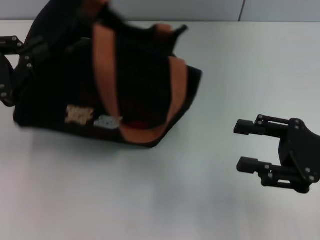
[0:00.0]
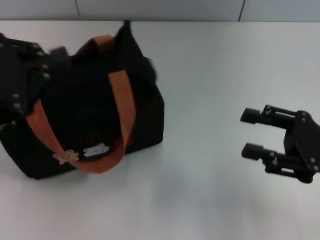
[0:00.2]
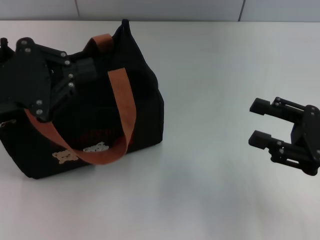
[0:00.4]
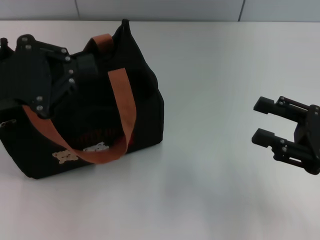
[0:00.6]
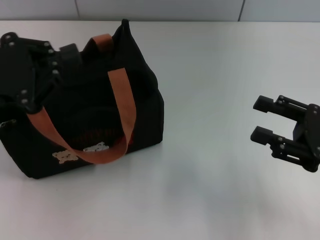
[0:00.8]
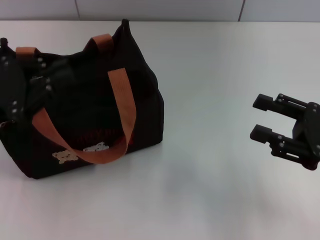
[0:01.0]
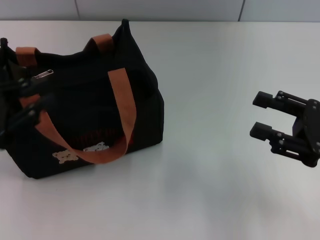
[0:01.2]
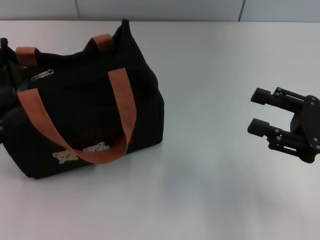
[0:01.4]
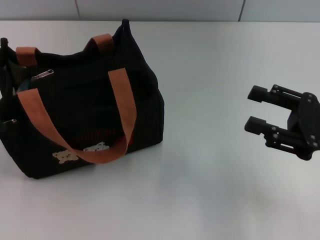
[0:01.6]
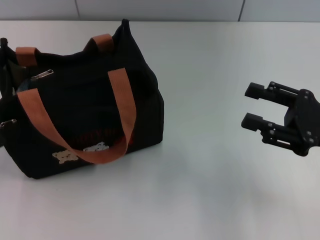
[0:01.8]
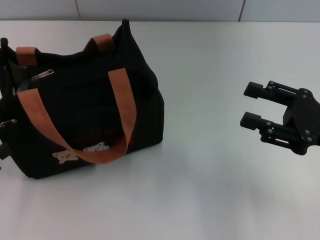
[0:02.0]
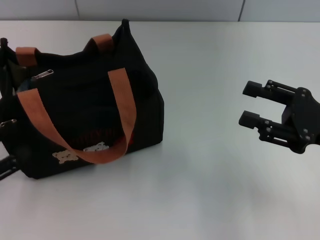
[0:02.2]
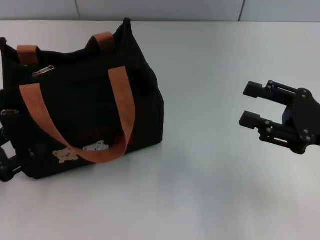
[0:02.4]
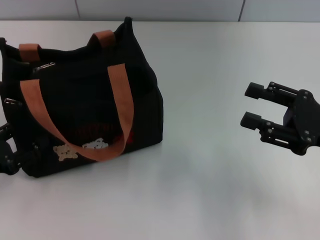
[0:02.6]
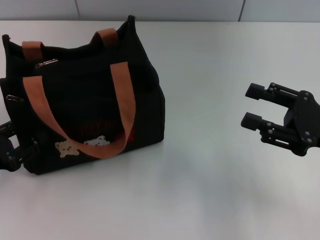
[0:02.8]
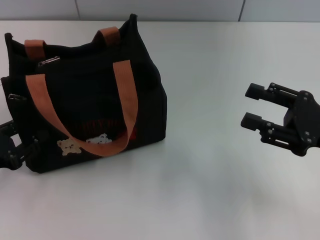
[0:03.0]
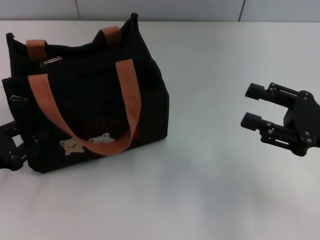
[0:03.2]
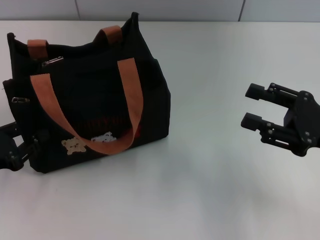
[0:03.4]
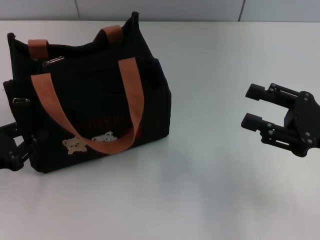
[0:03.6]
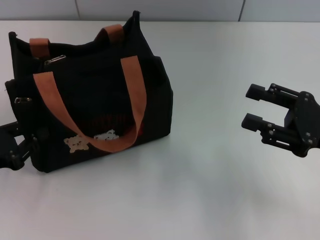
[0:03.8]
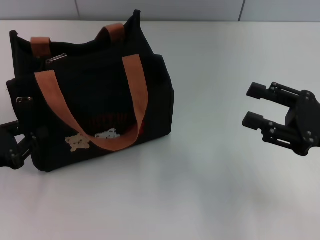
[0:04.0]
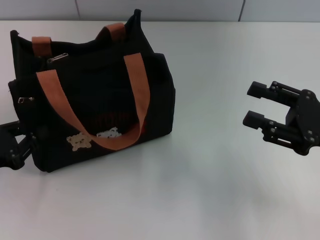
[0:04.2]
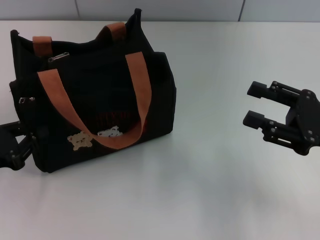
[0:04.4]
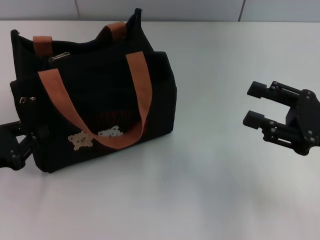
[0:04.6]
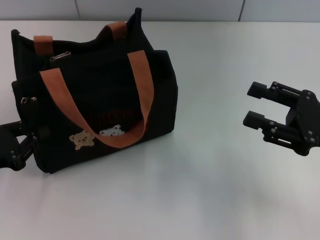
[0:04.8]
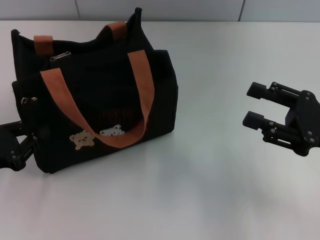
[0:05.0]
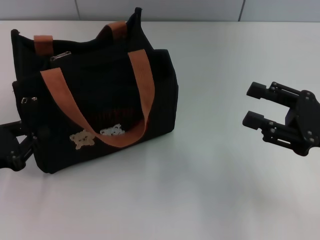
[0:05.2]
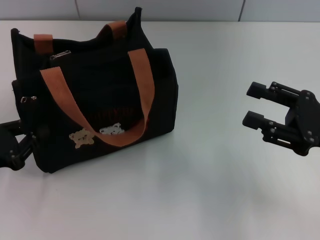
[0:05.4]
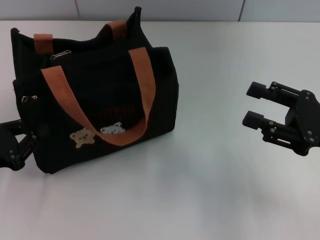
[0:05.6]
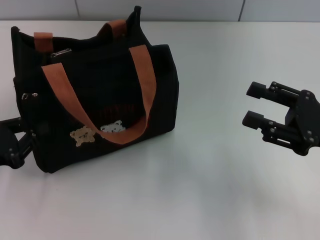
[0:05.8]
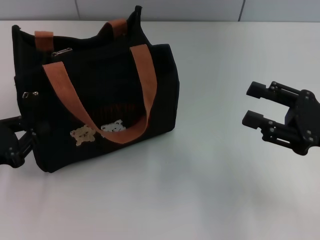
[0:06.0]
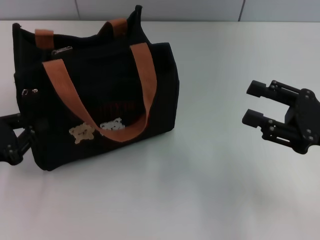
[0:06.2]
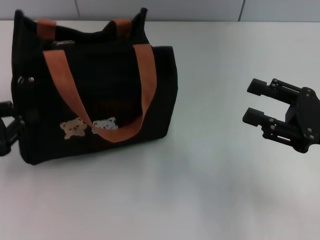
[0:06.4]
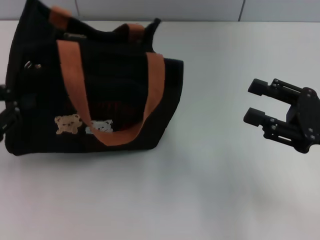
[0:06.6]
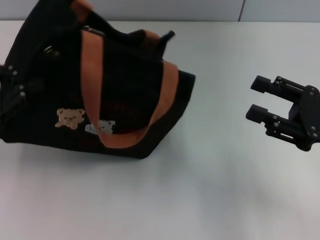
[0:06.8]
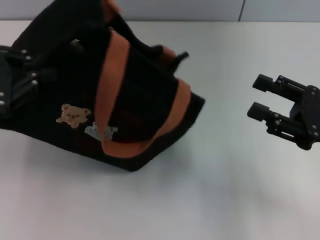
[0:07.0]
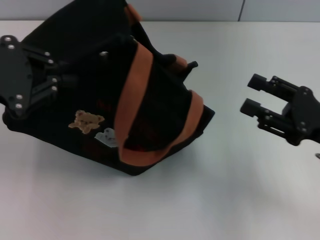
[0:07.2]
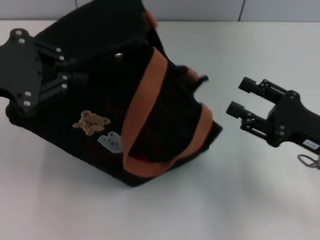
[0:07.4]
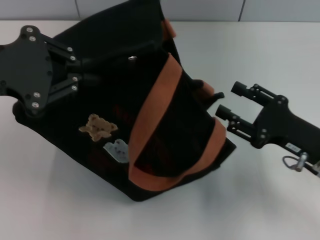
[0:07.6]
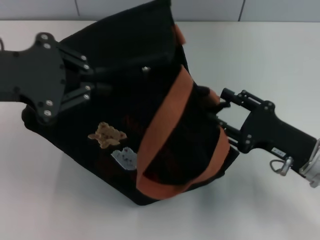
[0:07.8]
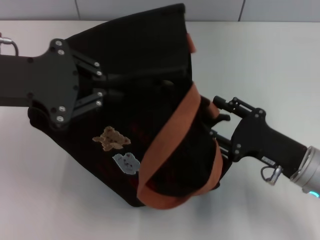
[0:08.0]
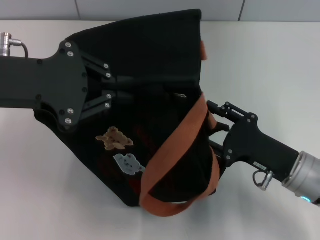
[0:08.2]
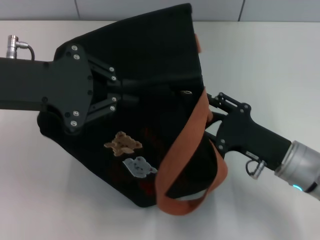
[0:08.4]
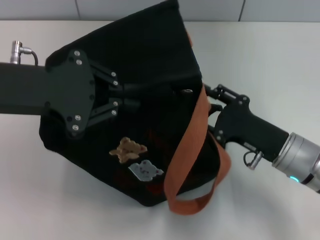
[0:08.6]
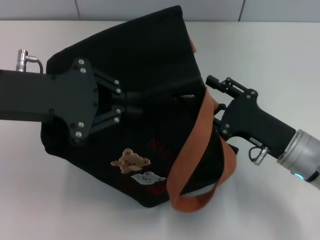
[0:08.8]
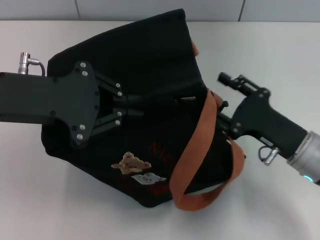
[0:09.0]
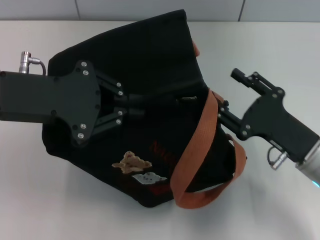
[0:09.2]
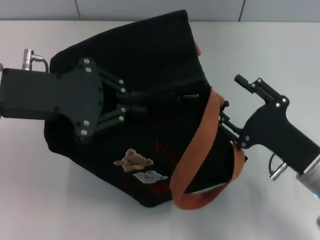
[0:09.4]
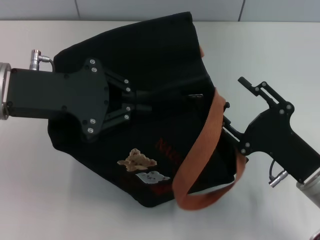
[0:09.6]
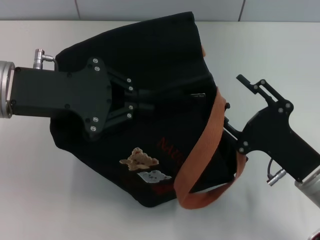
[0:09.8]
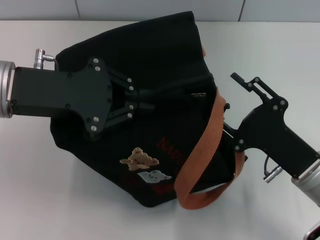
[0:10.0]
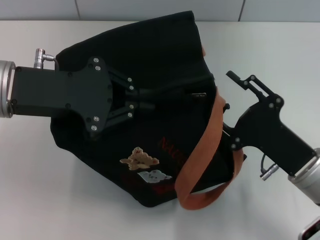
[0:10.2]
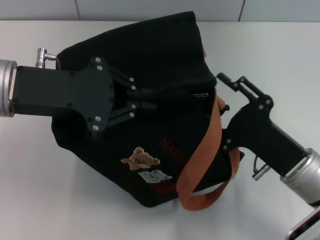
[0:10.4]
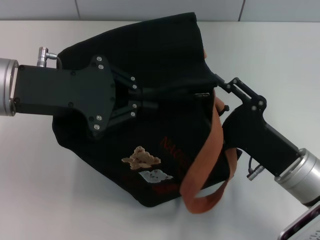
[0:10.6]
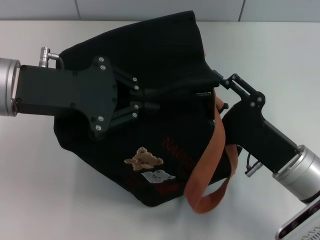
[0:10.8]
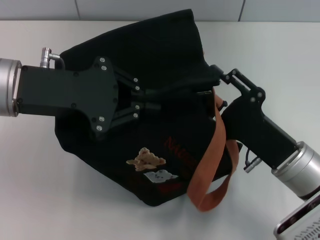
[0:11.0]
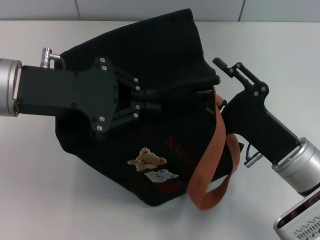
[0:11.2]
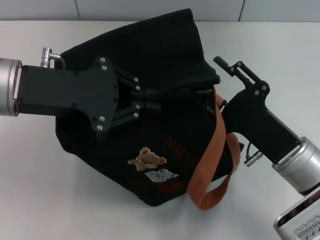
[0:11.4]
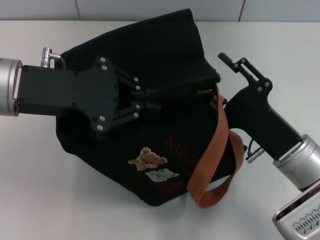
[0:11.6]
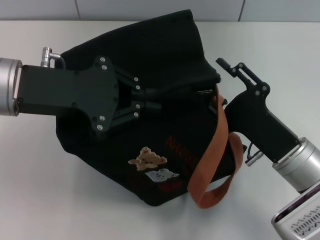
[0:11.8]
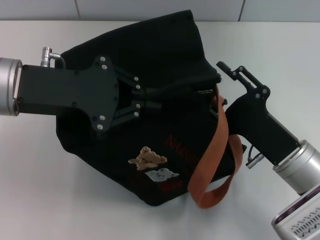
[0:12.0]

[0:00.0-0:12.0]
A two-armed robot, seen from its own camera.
0:00.0 to 0:01.6: The left gripper heads backward and to the left, covering about 10 cm, and opens.
0:01.6 to 0:03.0: The left gripper shifts about 5 cm downward.
0:03.0 to 0:04.4: The left gripper closes its fingers.
0:04.4 to 0:06.0: The two grippers keep their place.
0:06.0 to 0:07.6: The right gripper shifts by approximately 5 cm, while the left gripper heads upward, covering roughly 15 cm.
0:10.4 to 0:12.0: The grippers make only small movements.

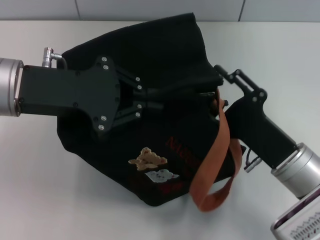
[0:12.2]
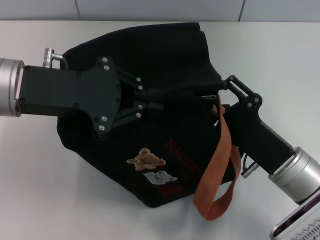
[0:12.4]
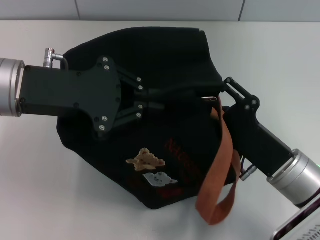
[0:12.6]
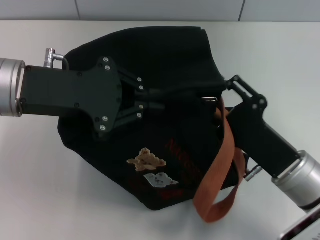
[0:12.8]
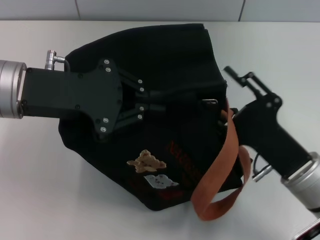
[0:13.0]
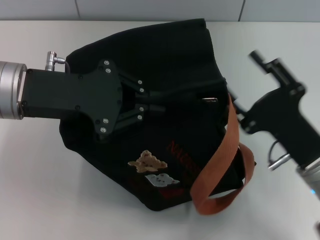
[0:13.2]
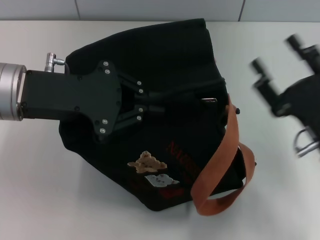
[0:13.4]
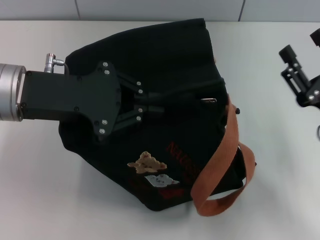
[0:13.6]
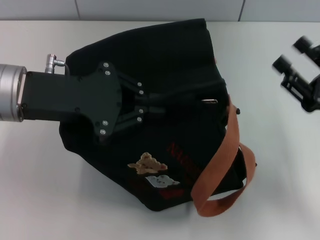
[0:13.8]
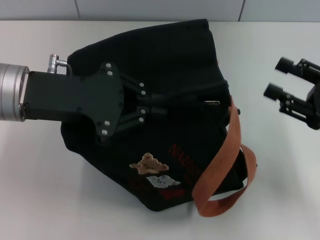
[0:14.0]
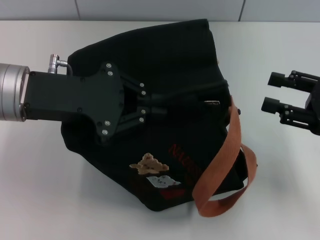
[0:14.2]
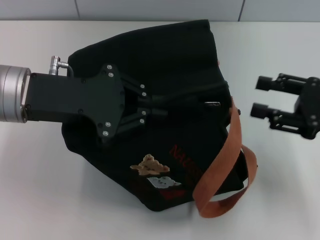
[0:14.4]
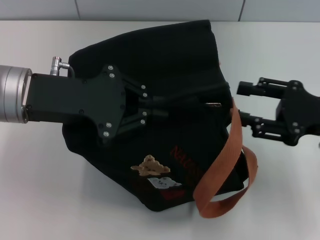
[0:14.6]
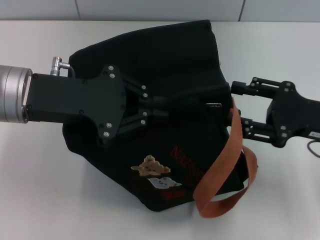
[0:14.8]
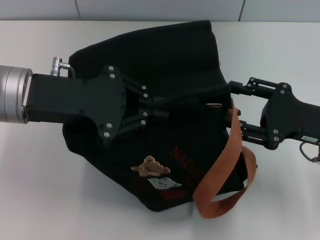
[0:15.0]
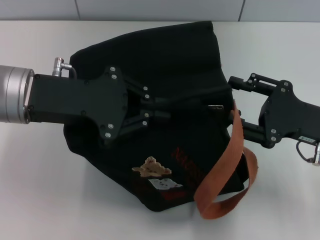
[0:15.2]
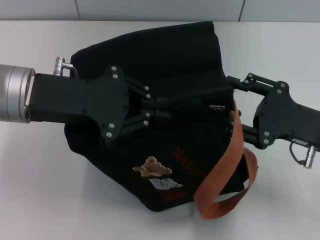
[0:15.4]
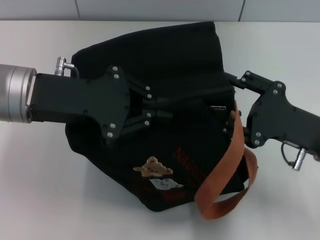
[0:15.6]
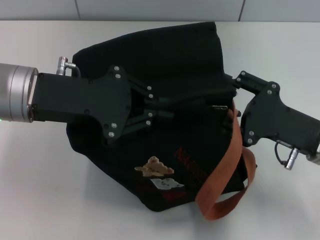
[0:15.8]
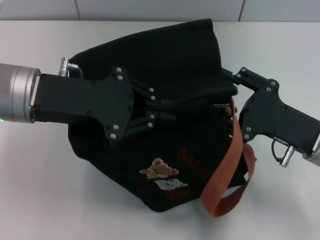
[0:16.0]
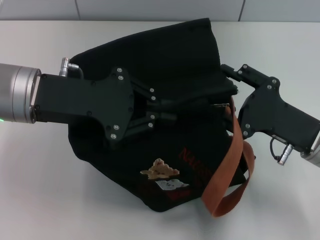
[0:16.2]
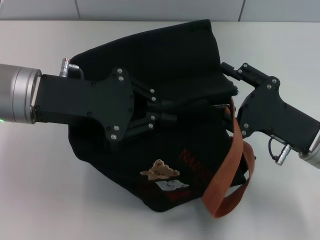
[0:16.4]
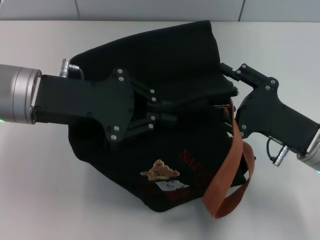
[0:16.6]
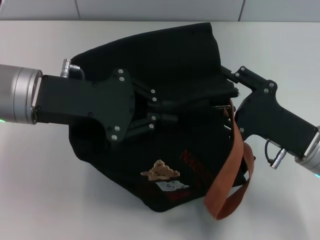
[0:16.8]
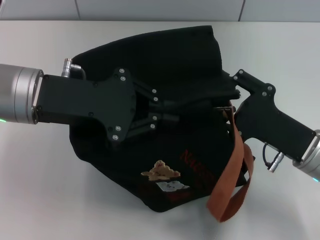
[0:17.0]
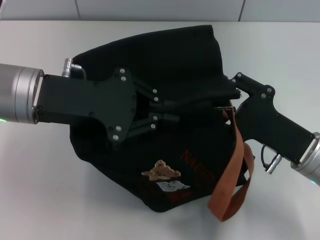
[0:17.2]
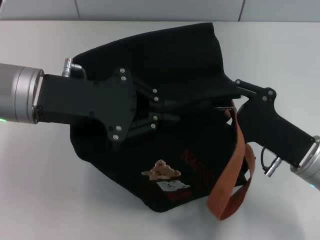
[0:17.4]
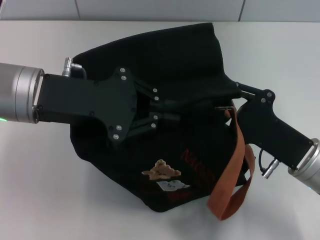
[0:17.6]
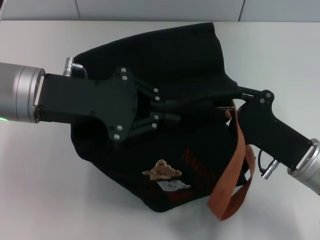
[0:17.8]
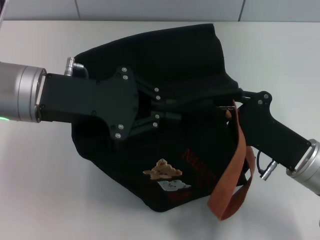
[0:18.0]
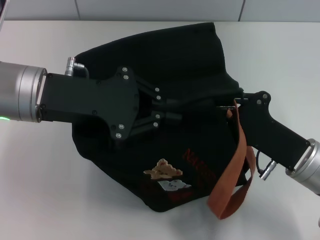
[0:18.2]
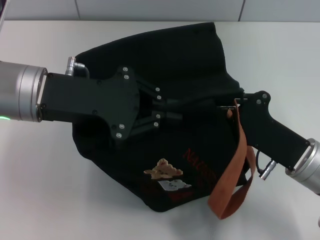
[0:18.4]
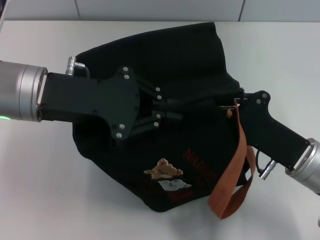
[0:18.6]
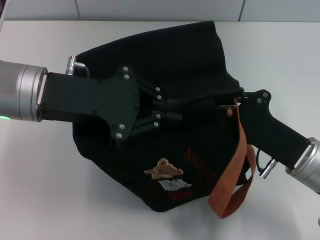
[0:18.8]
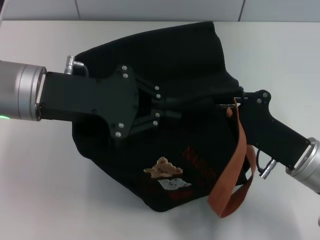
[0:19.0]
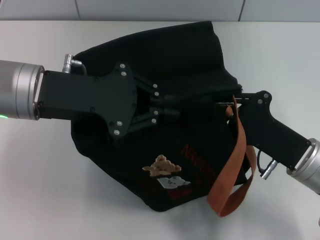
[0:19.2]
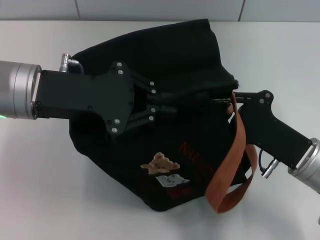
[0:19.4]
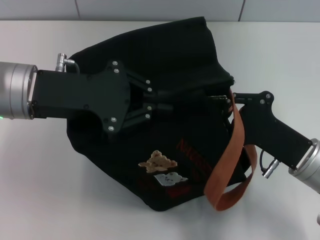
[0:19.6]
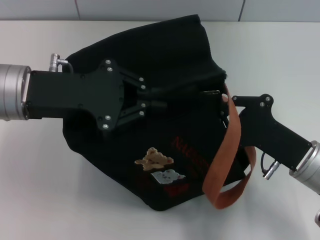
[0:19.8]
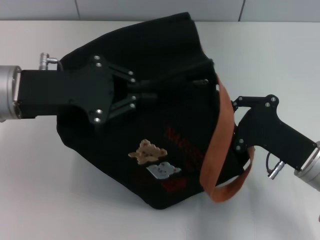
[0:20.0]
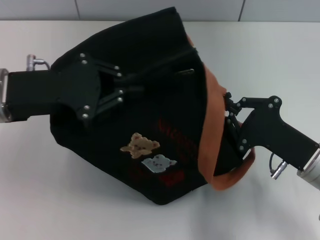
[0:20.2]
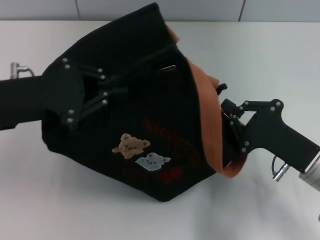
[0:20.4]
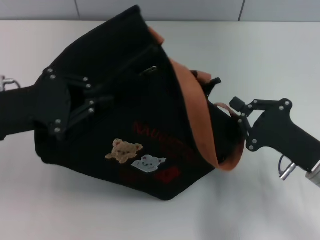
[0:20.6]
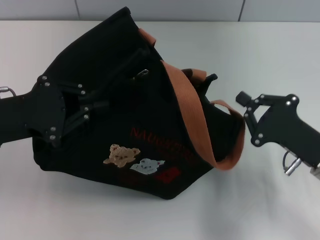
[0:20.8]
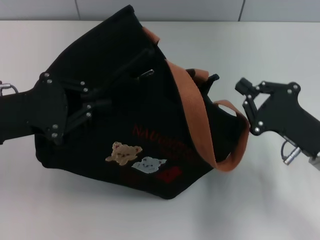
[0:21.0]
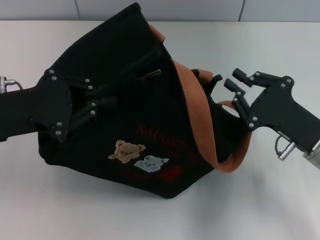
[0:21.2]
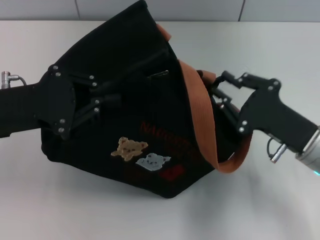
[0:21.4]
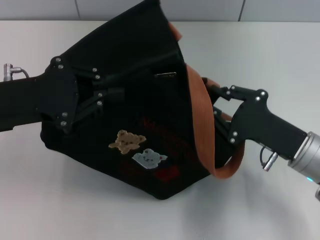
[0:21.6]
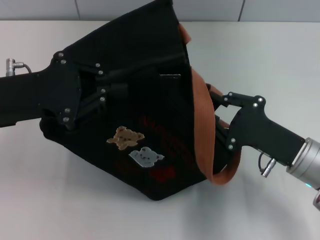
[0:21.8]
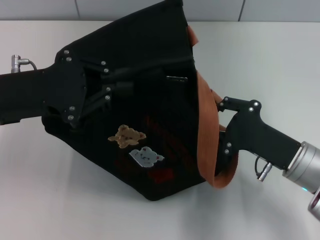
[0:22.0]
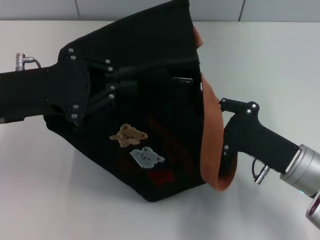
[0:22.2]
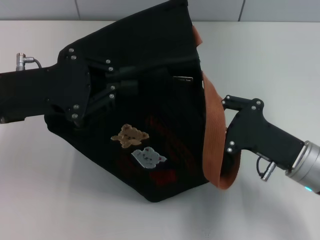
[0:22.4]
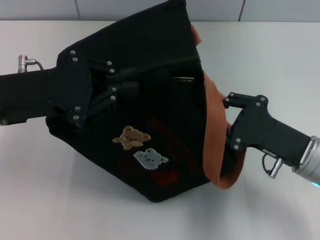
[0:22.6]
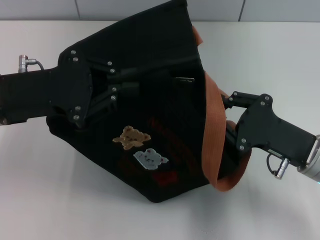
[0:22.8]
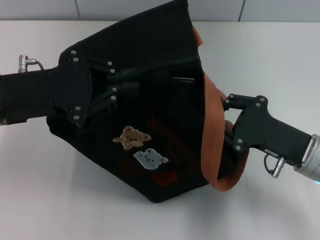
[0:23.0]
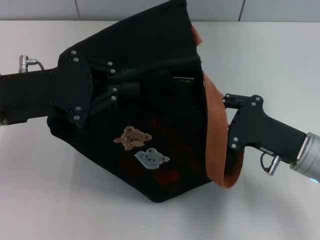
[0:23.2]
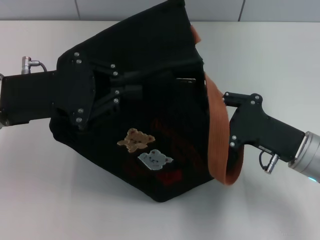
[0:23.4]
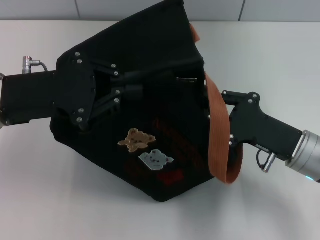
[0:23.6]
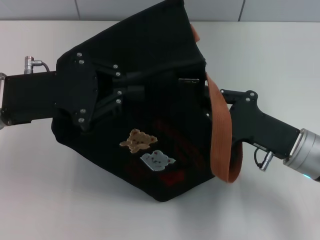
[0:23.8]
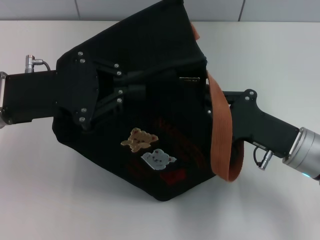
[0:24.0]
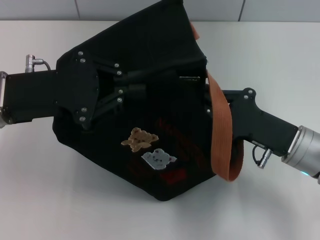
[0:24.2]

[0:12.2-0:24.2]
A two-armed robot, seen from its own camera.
0:12.2 to 0:13.8: The right gripper goes about 10 cm to the right.
0:15.2 to 0:16.6: The grippers make only small movements.
0:16.6 to 0:18.2: The right gripper closes.
0:18.2 to 0:19.8: The grippers make only small movements.
0:19.8 to 0:21.2: The left gripper heads to the left, covering approximately 5 cm.
0:22.6 to 0:24.2: The grippers stay close to where they were, moving slightly.
